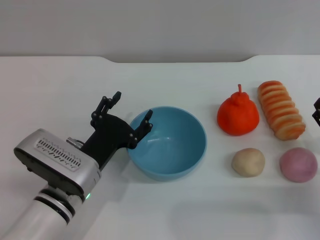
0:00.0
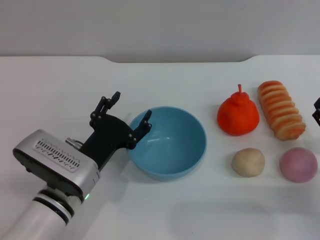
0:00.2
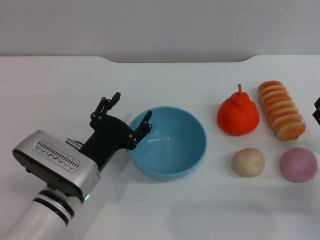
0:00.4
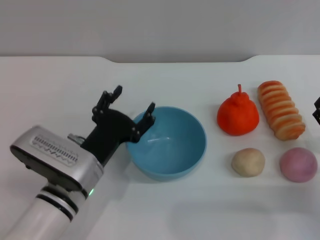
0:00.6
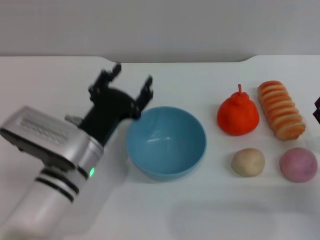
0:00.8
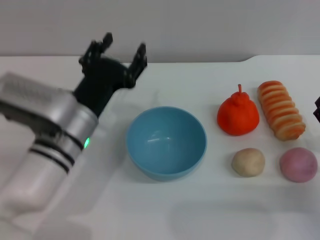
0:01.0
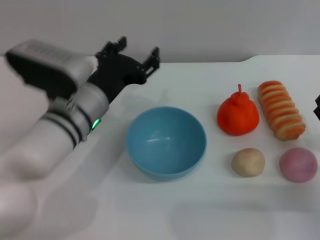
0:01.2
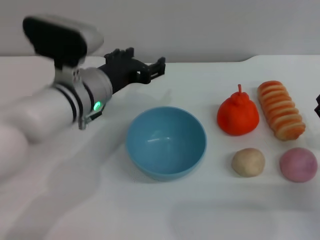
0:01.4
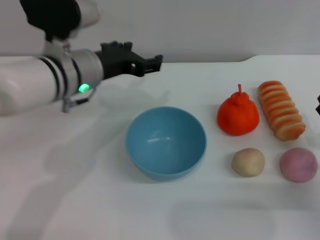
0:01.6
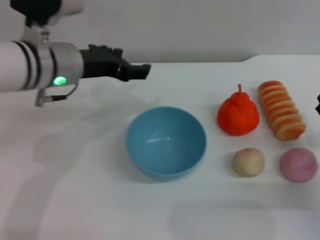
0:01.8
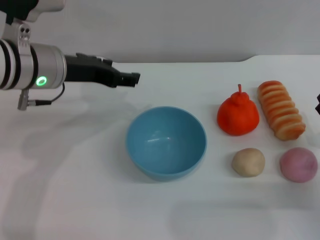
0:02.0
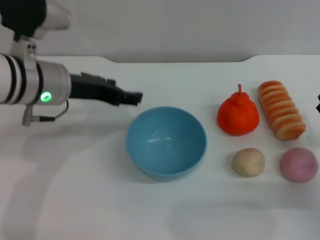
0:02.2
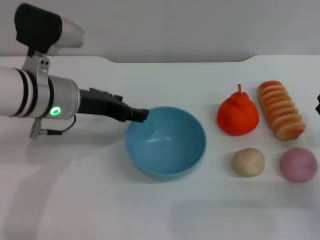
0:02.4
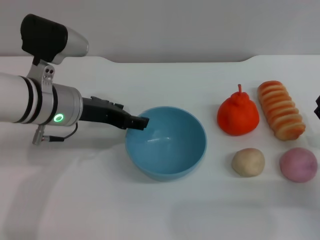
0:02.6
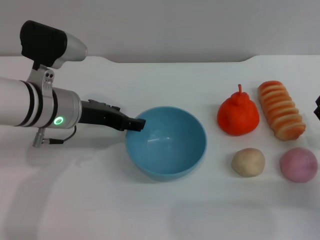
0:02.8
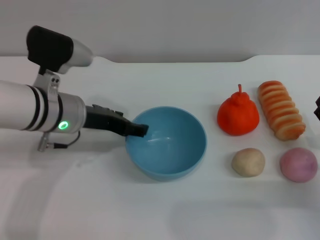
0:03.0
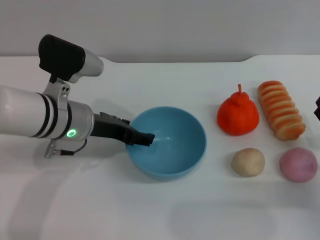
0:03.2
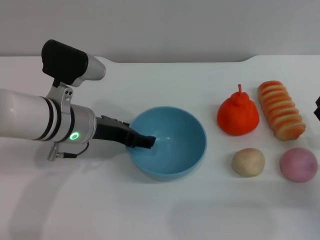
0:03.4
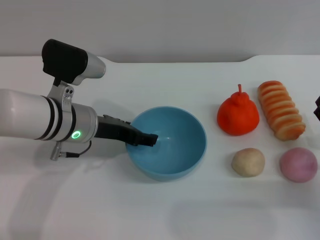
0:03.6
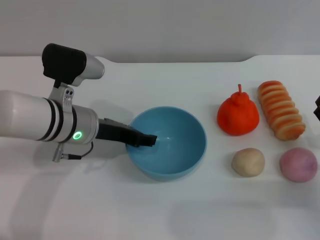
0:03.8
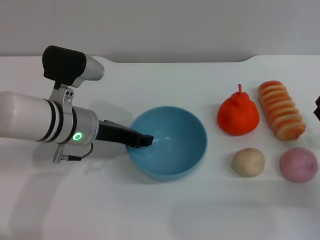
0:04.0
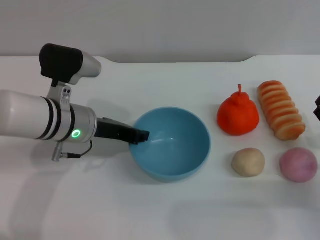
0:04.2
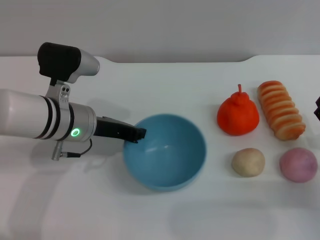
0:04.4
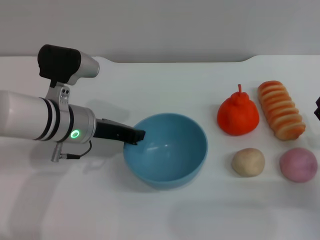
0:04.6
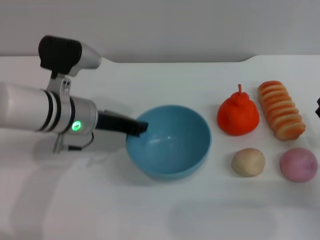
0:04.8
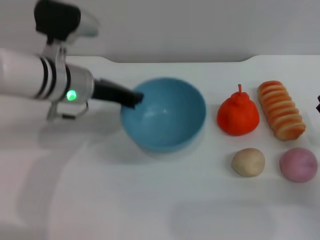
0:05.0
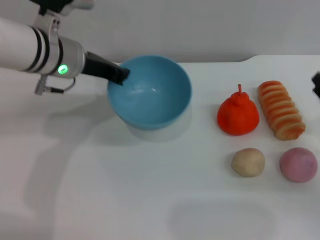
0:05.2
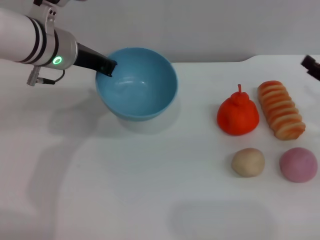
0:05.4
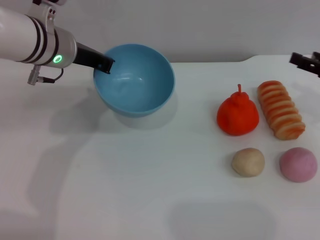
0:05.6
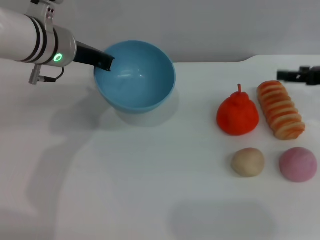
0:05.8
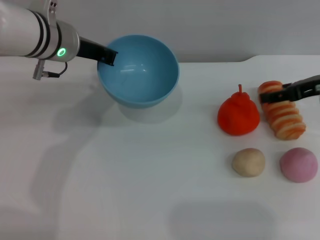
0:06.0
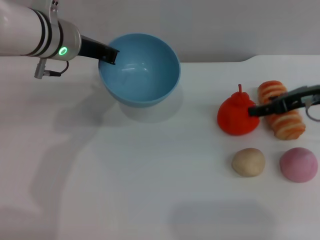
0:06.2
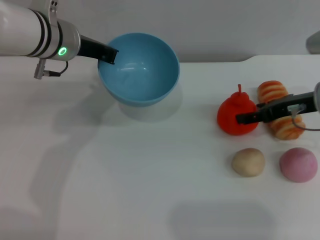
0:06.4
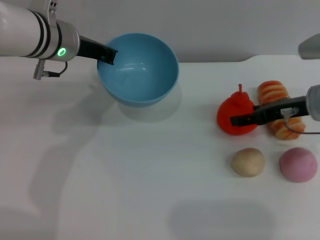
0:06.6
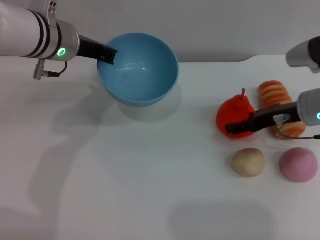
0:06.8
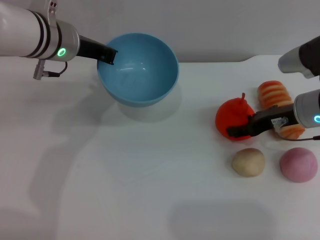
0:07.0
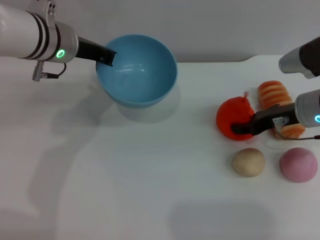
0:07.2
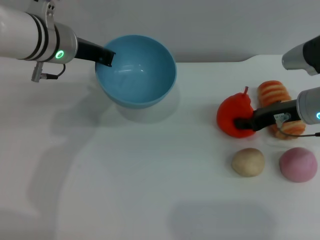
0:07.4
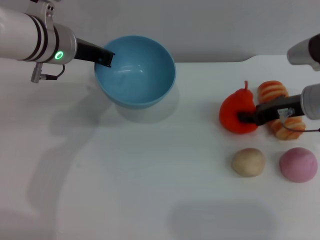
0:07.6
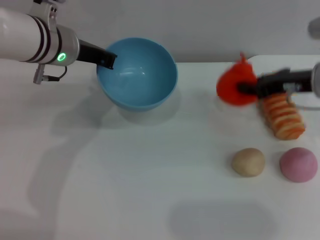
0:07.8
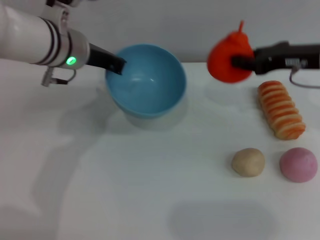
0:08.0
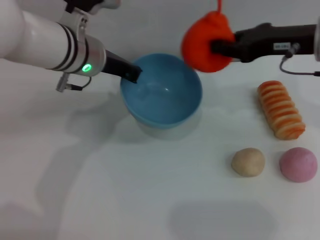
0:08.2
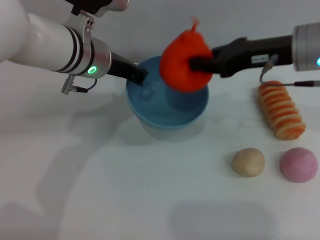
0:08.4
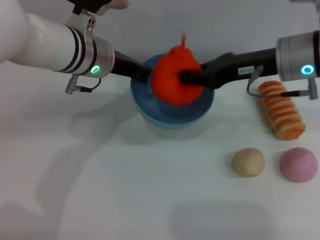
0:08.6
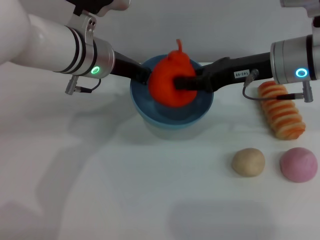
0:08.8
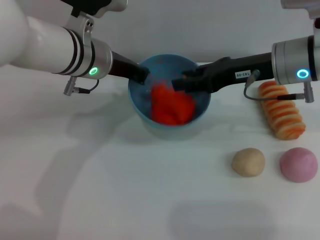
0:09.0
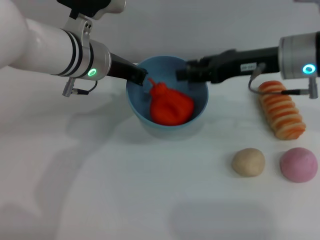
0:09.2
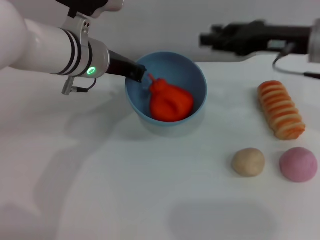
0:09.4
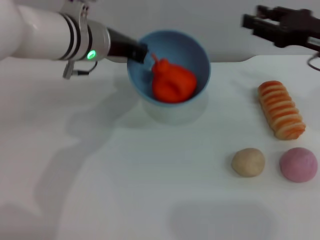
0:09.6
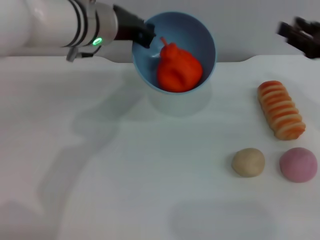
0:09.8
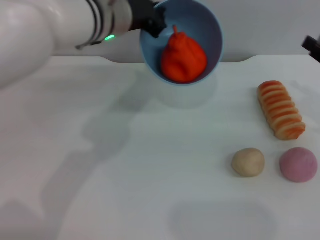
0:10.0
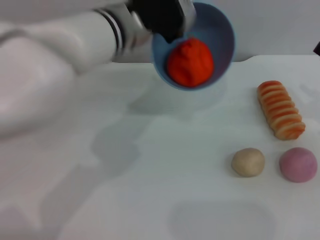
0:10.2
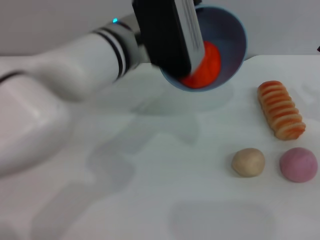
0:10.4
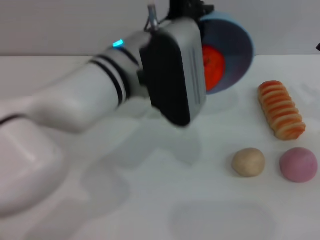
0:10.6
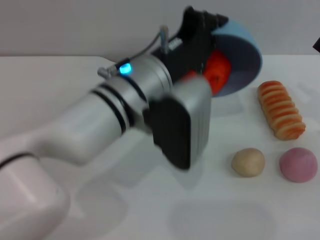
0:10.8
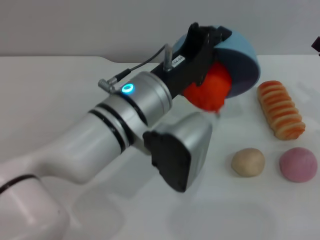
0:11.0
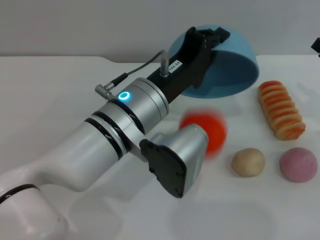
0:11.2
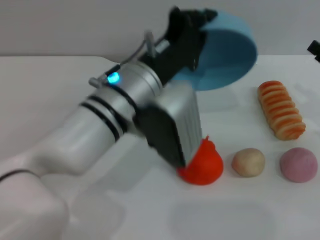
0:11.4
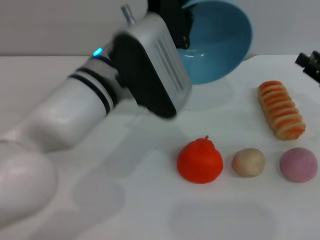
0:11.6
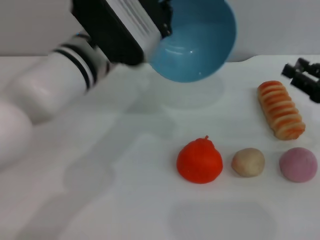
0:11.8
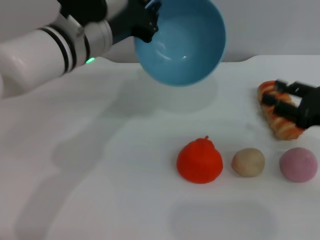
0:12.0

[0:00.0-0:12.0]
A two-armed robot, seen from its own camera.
Task of the whole recording: put the orange into the blue bowl and pour it out repeatedly.
Step, 0:00.0 to 0:05.2: Pick up the bowl with the left gripper.
Step, 0:05.4 to 0:07.8: Pick up the orange with the right gripper.
Step, 0:08.2 to 0:09.2: Place the orange into the bowl.
Step, 0:09.6 to 0:11.4: Pour the orange out of the bowl.
0:00.0 to 0:01.6: The left gripper heads upward and forward, covering approximately 20 cm.
0:03.0 to 0:04.4: The left gripper closes its fingers.
0:04.4 to 0:06.0: The left gripper travels upward and forward by roughly 10 cm. The right gripper goes approximately 20 cm upward and forward.
0:06.0 to 0:07.6: The right gripper changes place by approximately 5 cm, and closes its fingers.
0:07.6 to 0:09.0: The right gripper is displaced upward and to the left by roughly 10 cm.
0:09.0 to 0:10.4: The left gripper goes some 5 cm to the right; the right gripper travels to the right, backward and downward by approximately 20 cm, and opens.
0:10.4 to 0:12.0: The left gripper heads to the left, covering approximately 5 cm, and goes backward and returns, some 10 cm each way.

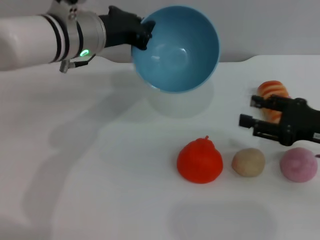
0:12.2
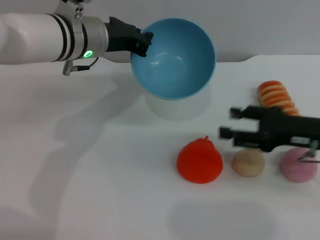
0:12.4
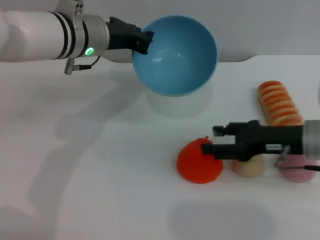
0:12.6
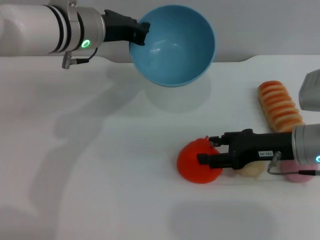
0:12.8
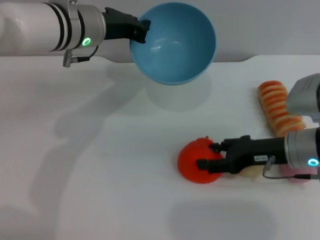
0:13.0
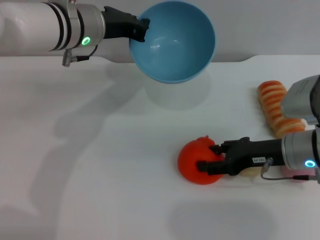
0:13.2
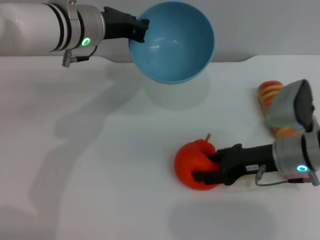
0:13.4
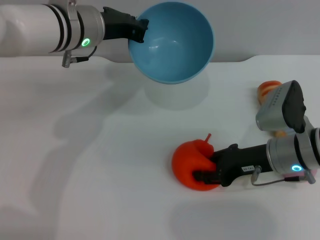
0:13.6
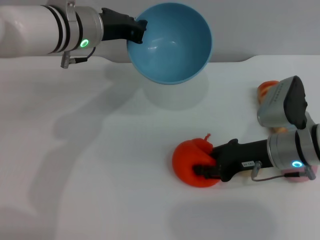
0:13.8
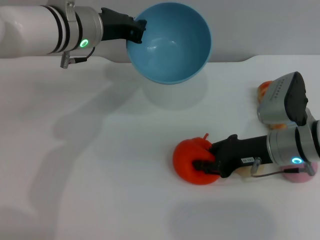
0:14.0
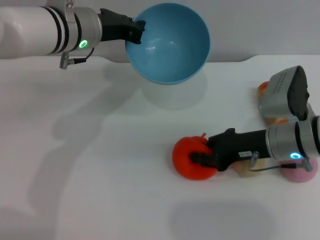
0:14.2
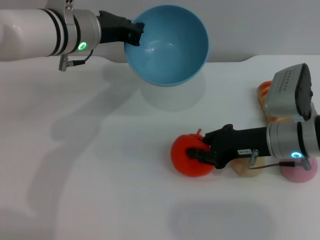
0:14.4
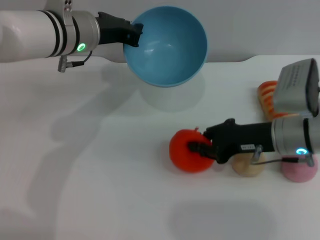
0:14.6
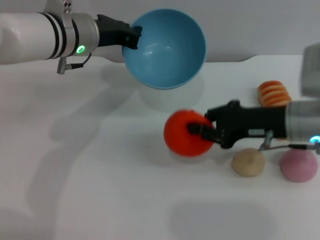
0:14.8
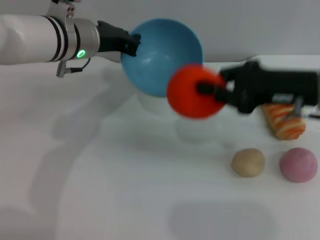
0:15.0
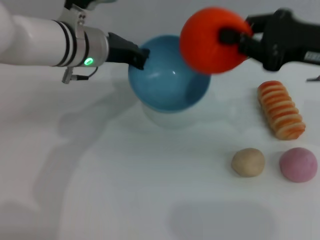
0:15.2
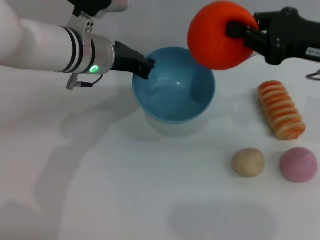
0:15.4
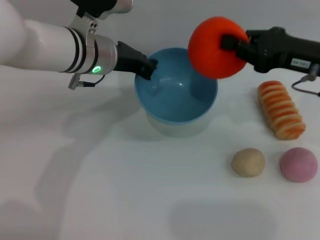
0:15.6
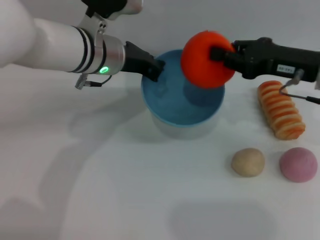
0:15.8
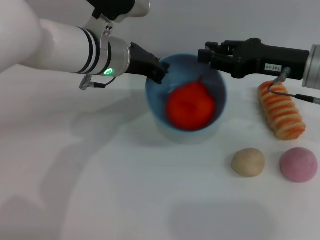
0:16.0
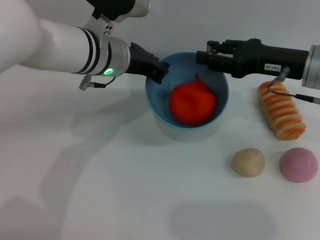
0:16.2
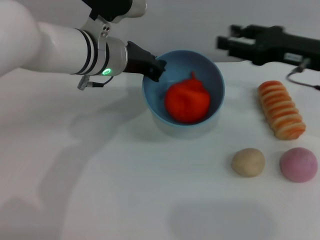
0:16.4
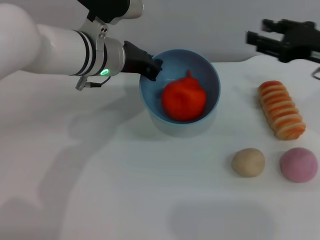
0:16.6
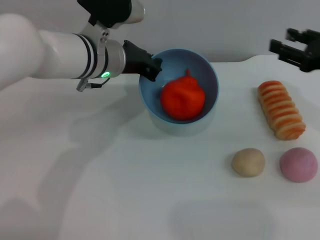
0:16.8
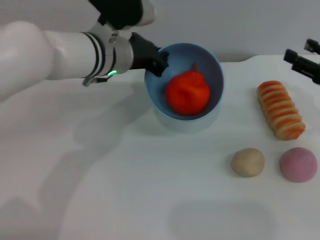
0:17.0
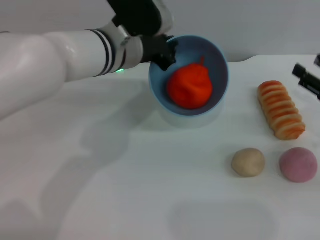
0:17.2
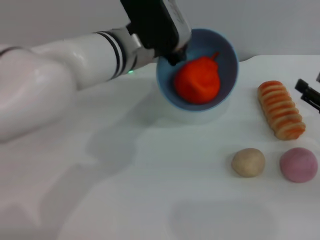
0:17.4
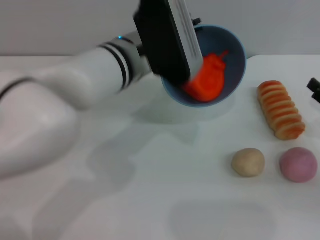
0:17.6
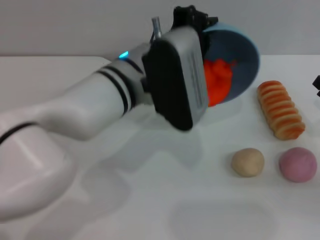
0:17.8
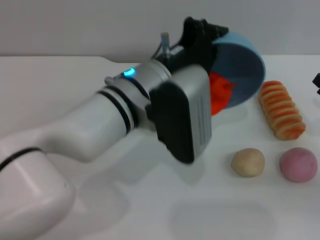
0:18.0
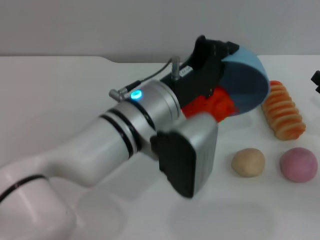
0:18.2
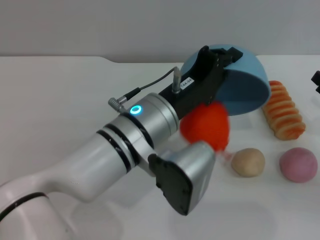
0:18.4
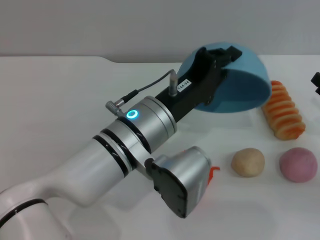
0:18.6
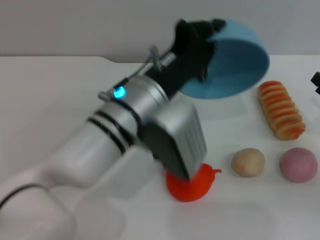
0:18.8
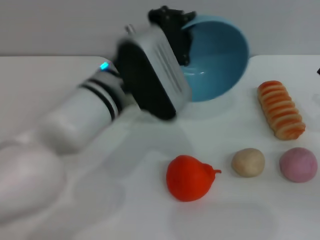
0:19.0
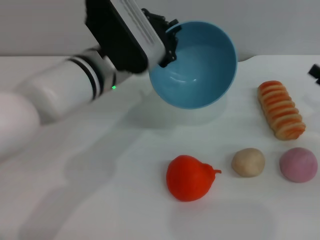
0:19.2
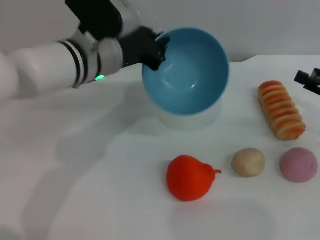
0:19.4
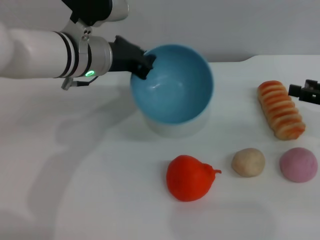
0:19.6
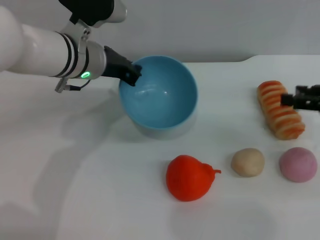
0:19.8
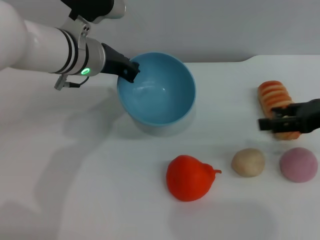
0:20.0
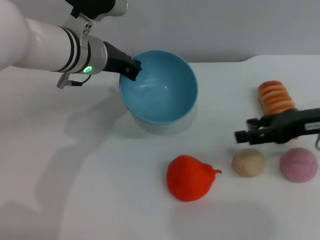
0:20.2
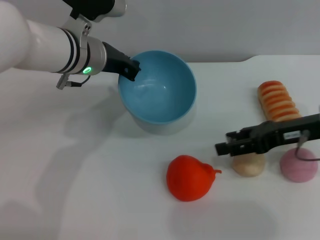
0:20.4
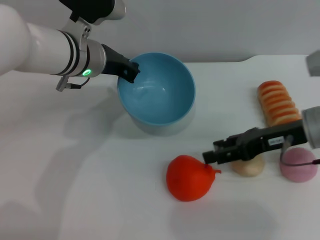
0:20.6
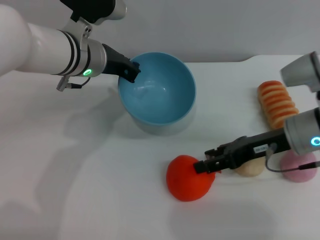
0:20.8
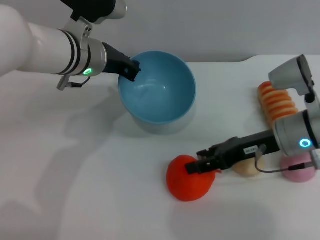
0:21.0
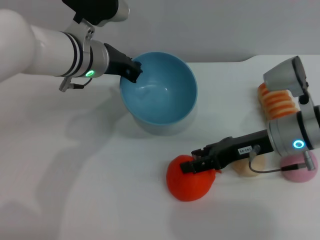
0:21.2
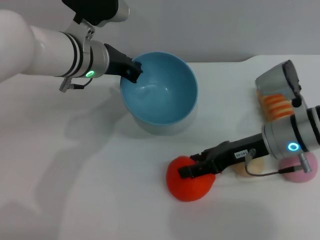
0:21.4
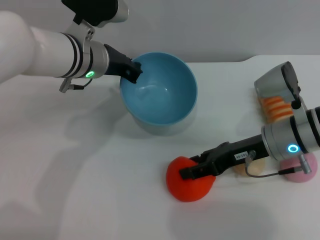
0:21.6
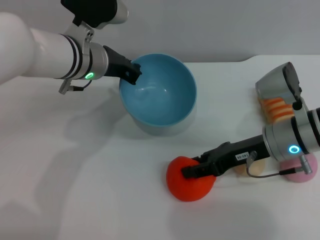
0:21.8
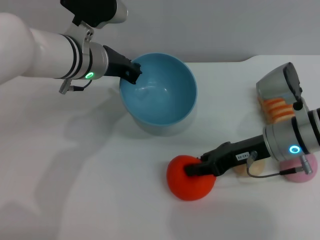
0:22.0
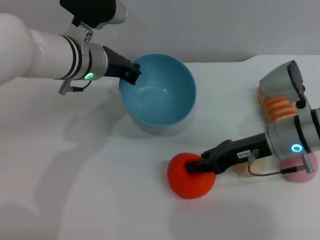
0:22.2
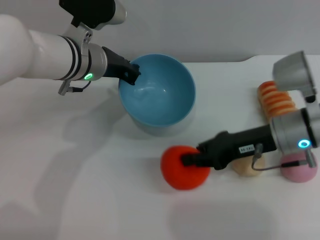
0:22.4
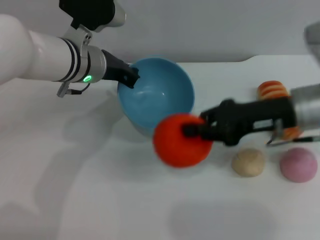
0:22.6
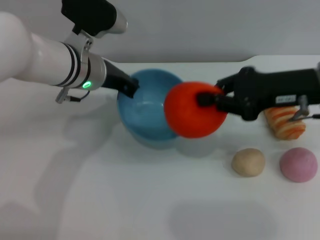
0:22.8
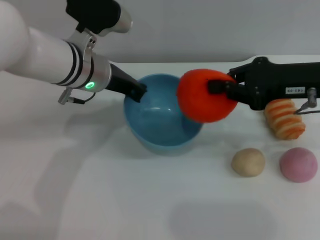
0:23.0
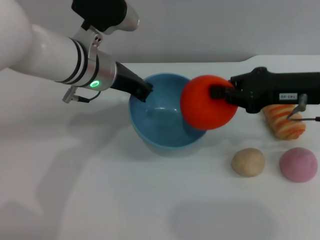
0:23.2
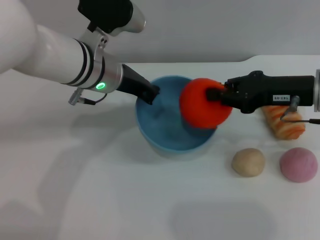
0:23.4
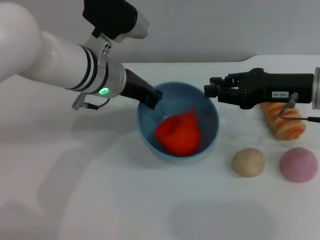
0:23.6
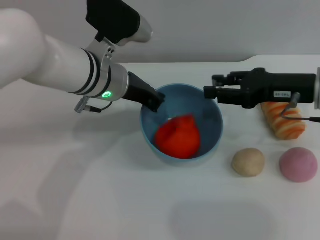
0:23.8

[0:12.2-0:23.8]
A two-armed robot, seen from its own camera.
Task of the whole recording: put the orange into the blue bowl and pour it out repeatedly.
Step, 0:12.2 to 0:15.0: Pick up the orange with the right gripper.
Step, 0:15.2 to 0:16.4: Place the orange into the bowl.
Step, 0:16.6 to 0:18.6: Pour the orange out of the bowl.
Step, 0:18.8 to 0:22.6: Pick up the orange with the right gripper.
Step, 0:22.8 to 0:23.8: Place the orange into the bowl.
0:12.2 to 0:13.6: The right gripper moves to the left, some 10 cm.
0:13.6 to 0:15.0: The right gripper shifts approximately 10 cm upward, and closes up.
0:15.0 to 0:16.6: The right gripper travels to the right by roughly 5 cm, and opens.
0:16.6 to 0:18.0: The left gripper goes roughly 10 cm backward and to the right. Meanwhile the right gripper moves downward, backward and to the right, some 15 cm.
0:18.0 to 0:19.4: The right gripper changes place by some 5 cm; the left gripper heads forward and to the left, covering about 10 cm.
0:19.4 to 0:21.0: The right gripper is displaced to the left by about 15 cm.
0:21.0 to 0:22.4: The right gripper closes its fingers.
0:22.4 to 0:23.8: The right gripper heads upward, covering about 5 cm.
